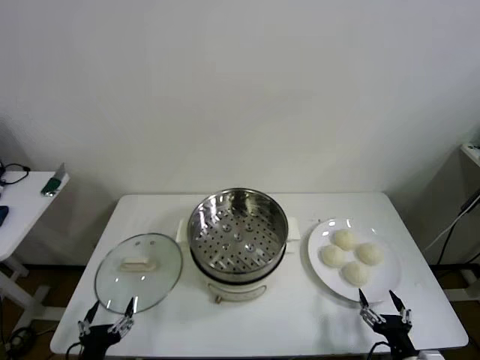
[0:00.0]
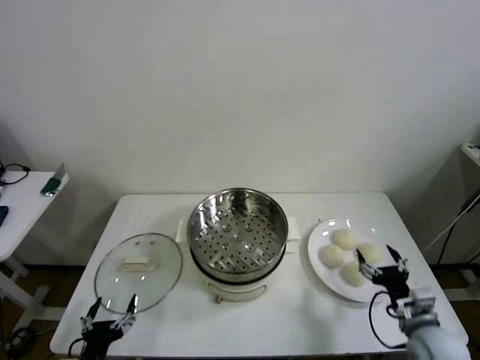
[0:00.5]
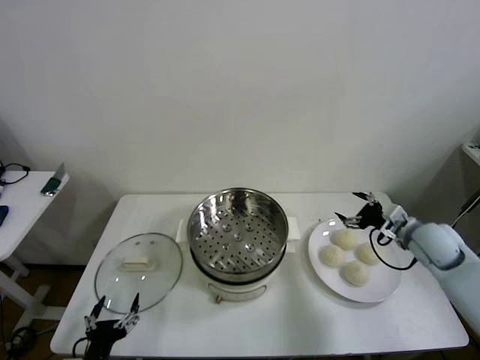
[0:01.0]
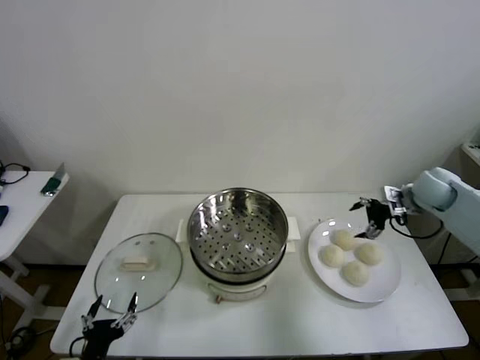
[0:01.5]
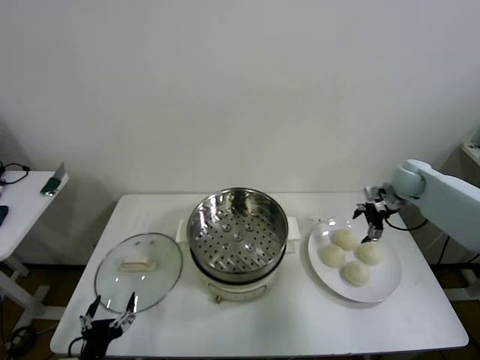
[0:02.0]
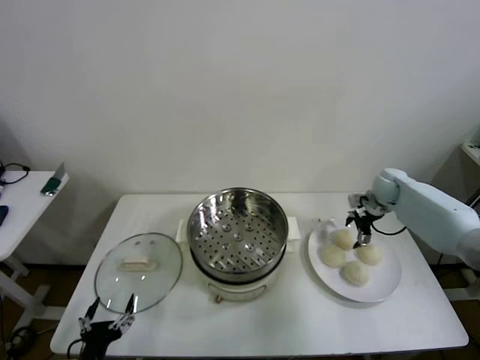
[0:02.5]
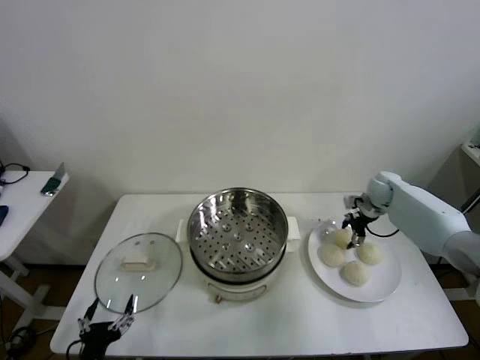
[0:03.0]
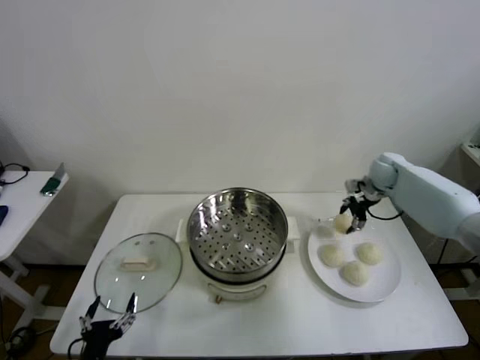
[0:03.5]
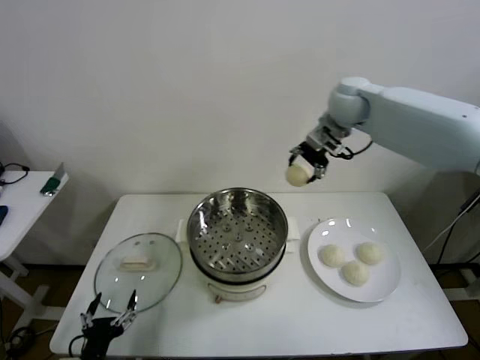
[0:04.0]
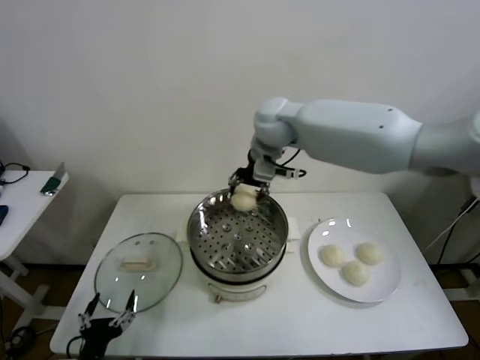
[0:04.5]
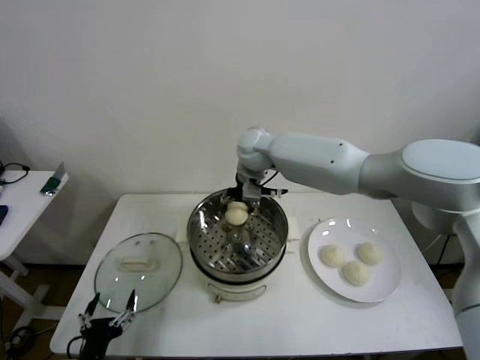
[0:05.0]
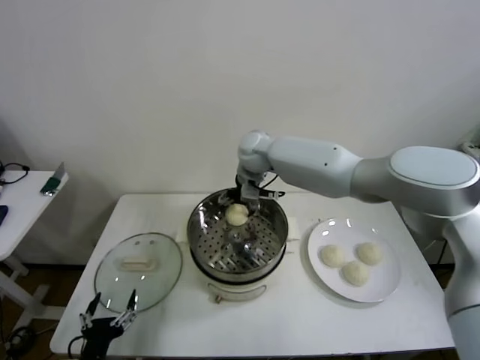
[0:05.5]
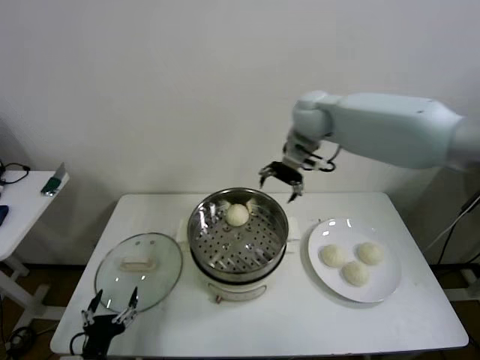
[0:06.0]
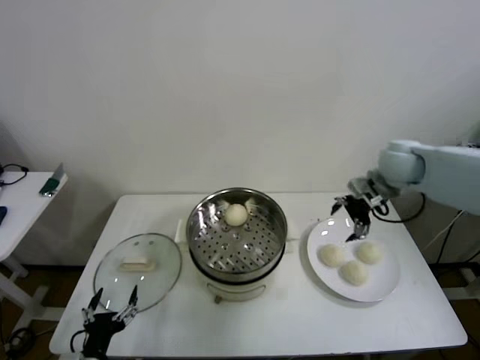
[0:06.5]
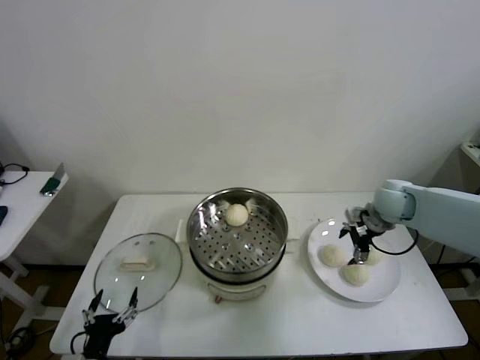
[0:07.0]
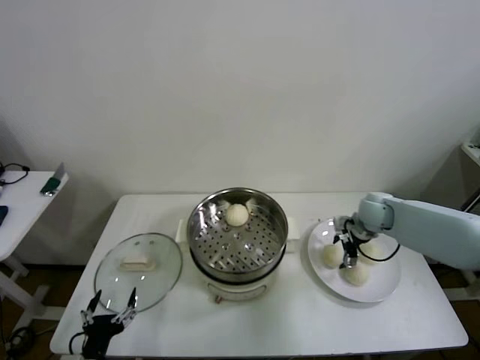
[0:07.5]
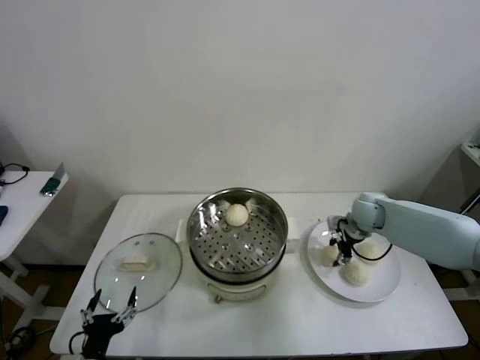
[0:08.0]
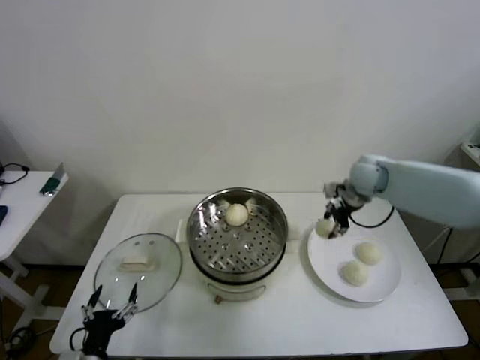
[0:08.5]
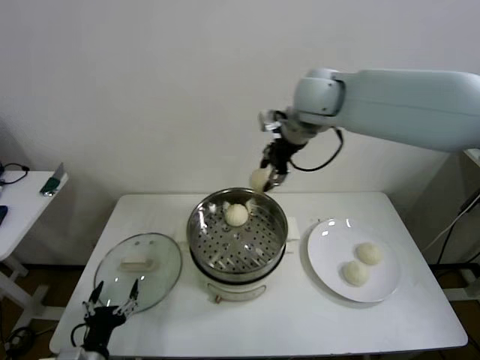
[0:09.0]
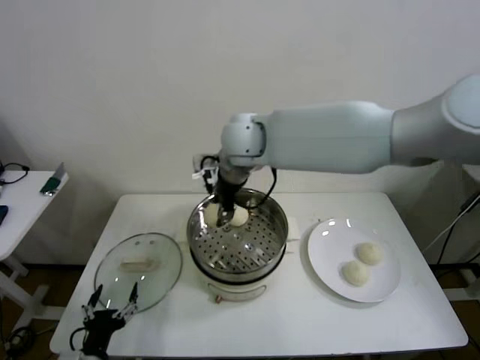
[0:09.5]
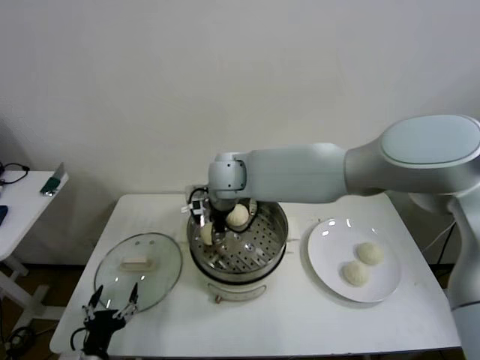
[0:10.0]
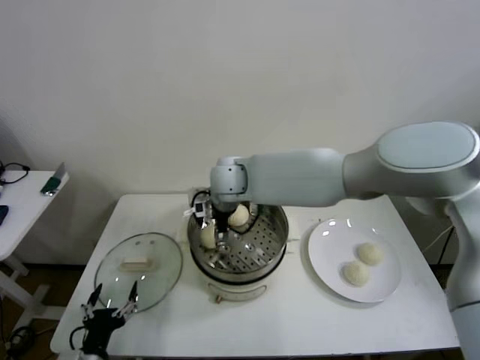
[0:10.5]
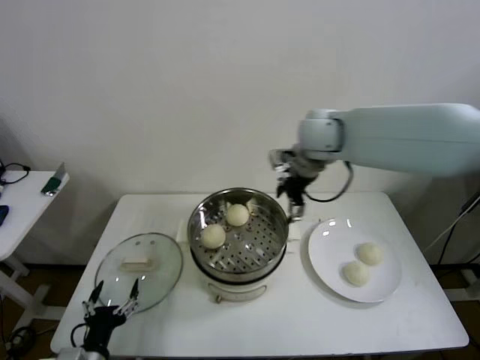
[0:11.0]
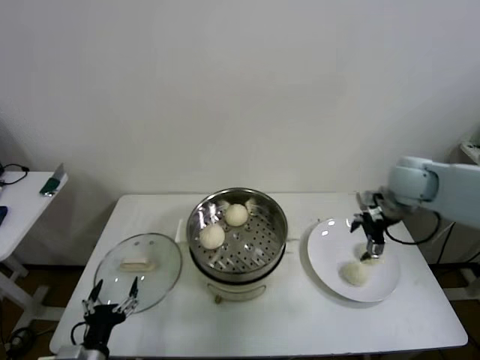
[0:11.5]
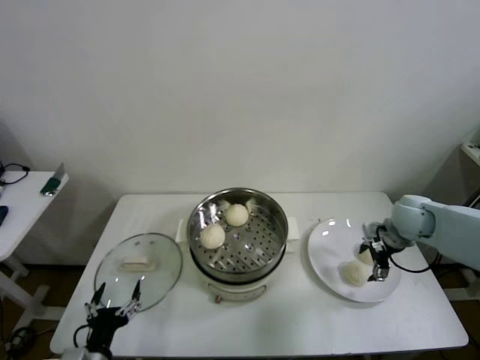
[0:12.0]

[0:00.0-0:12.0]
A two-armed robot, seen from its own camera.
Step, 0:00.0 to 0:02.5: Grasp the baozi in the plate with right gripper.
Step, 0:03.0 to 0:05.5: Place the baozi on the steamer with right gripper.
Step, 0:06.0 to 0:08.0: Grasp the baozi in the plate with right gripper.
Step, 0:08.5 to 0:10.5: Place the baozi on the steamer with right gripper.
0:02.0 to 0:04.0: The right gripper goes some 35 cm to the left and upward, and closes up.
0:04.0 to 0:06.0: The right gripper moves approximately 15 cm to the left and comes back, and opens its fingers.
0:06.0 to 0:08.0: The right gripper travels downward and to the right by approximately 30 cm, and closes up.
0:08.0 to 0:10.0: The right gripper heads to the left and upward, covering roughly 40 cm.
0:10.0 to 0:12.0: The right gripper goes some 40 cm to the right, and opens up.

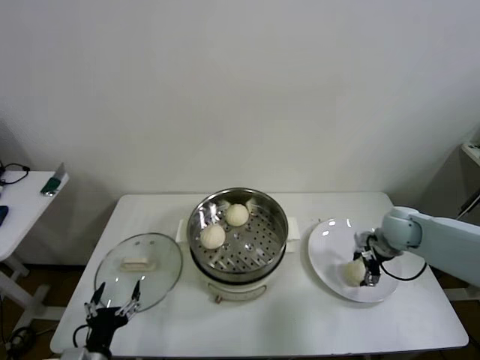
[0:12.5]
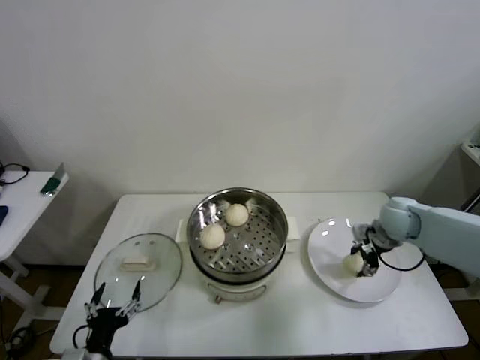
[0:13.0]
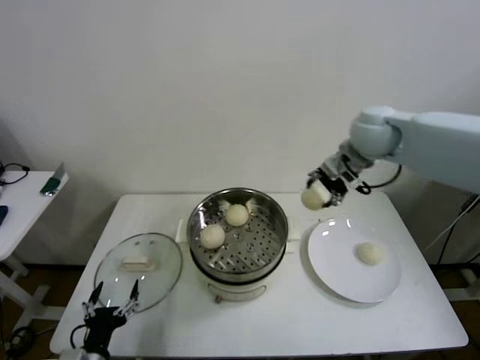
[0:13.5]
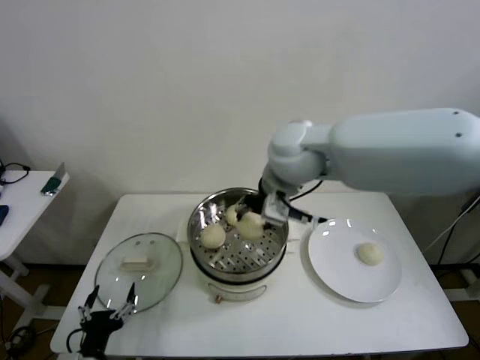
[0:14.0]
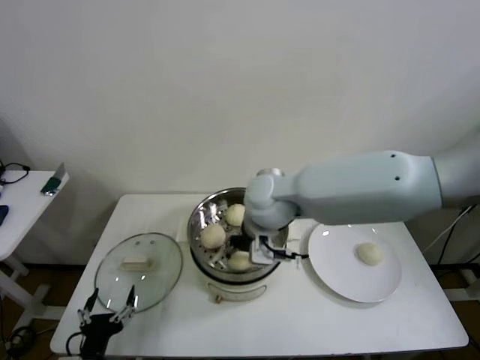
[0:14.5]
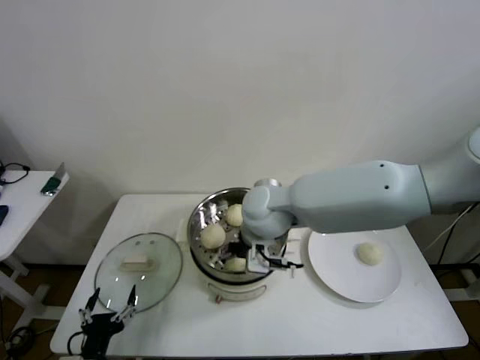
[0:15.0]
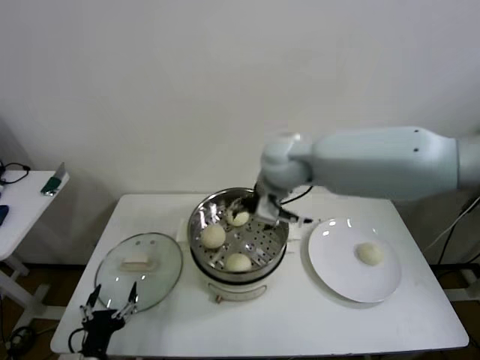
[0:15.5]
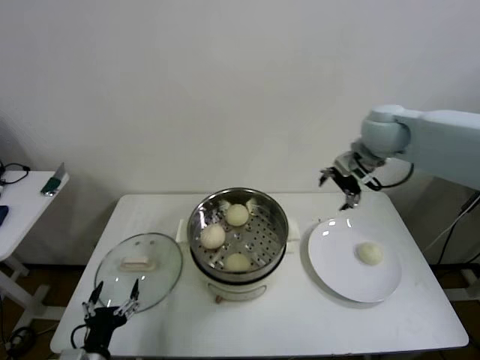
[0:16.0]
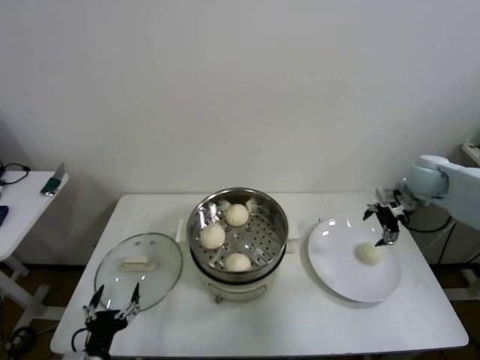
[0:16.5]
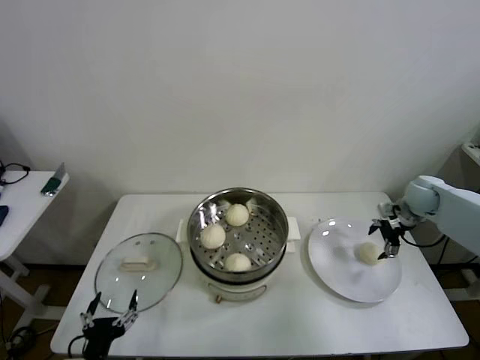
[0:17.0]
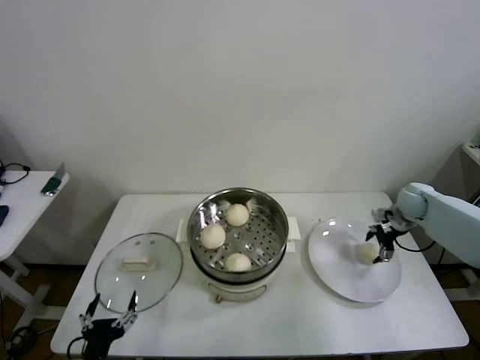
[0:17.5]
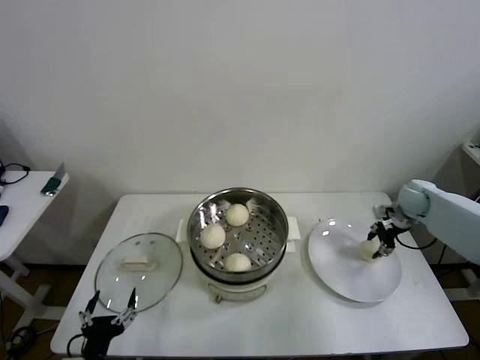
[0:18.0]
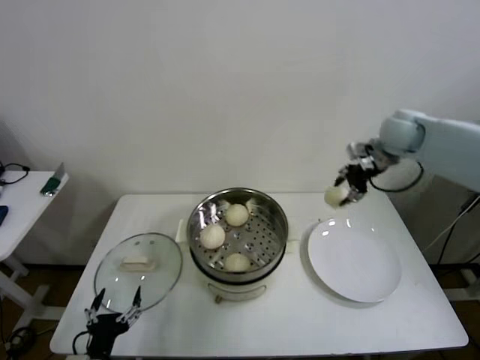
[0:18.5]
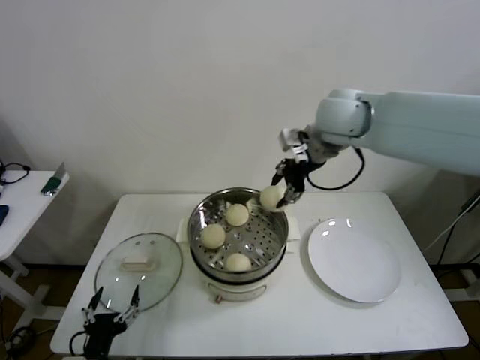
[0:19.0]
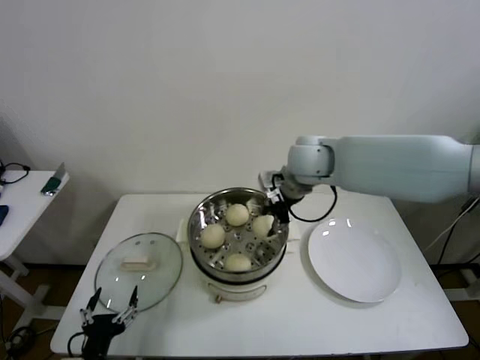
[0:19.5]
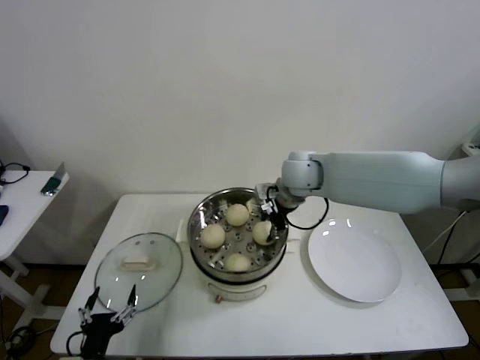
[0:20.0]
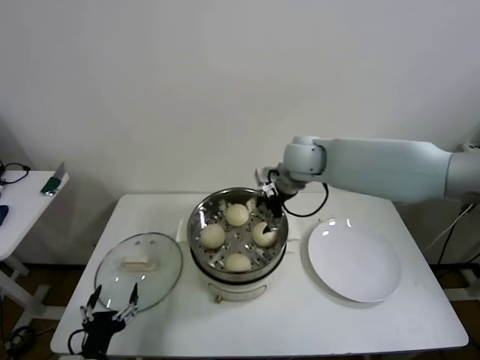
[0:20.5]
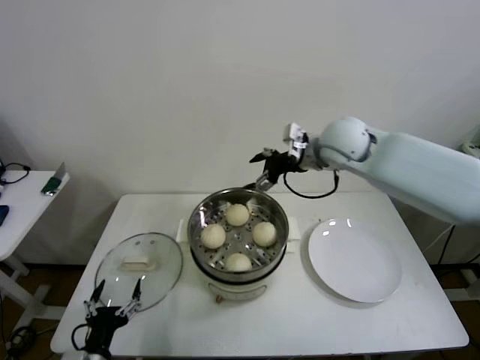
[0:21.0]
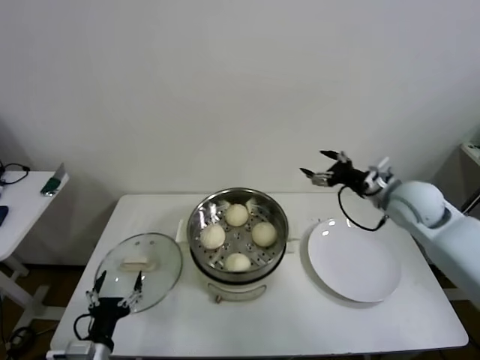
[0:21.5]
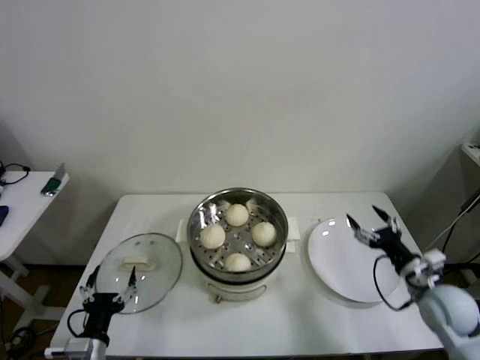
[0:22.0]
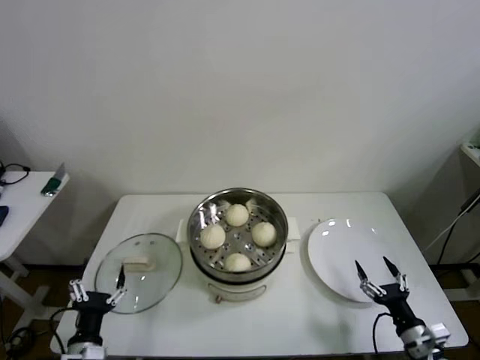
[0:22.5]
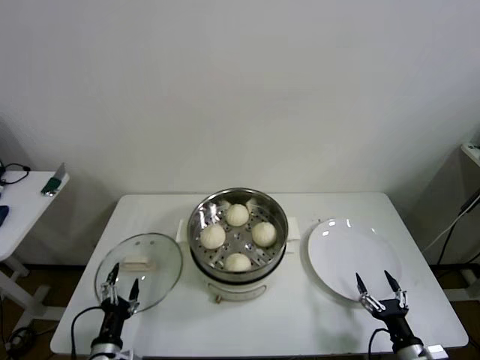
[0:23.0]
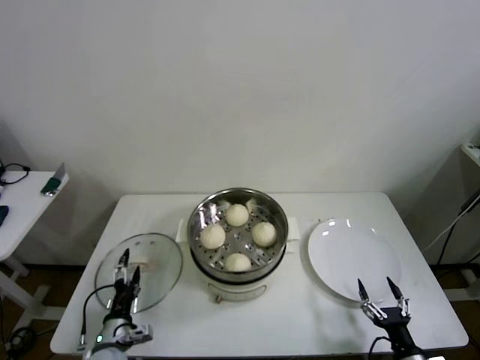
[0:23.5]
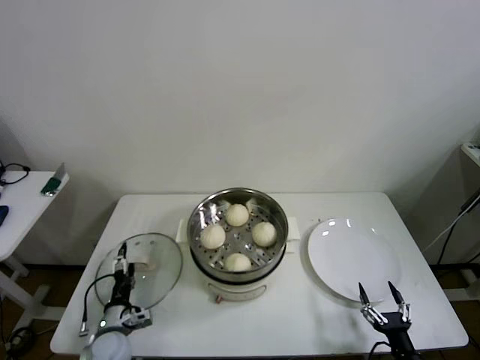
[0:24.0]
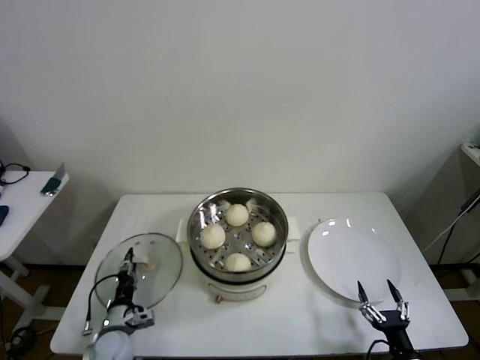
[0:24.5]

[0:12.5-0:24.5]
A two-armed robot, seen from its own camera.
Step, 0:13.0 to 0:15.0: Place the baozi on the steamer with right gripper.
Step, 0:15.5 to 0:17.5: Grasp the baozi in the plate with right gripper.
Step, 0:18.0 to 0:20.0: Place the baozi on the steamer with right gripper.
0:12.5 to 0:14.5: The right gripper travels to the left and upward by some 35 cm, and closes.
0:14.5 to 0:16.5: The right gripper moves to the right, roughly 40 cm, and opens up.
0:16.5 to 0:18.5: The right gripper goes roughly 15 cm upward and to the left, and closes.
0:18.5 to 0:20.5: The right gripper is displaced to the left by roughly 20 cm, and opens up.
0:20.5 to 0:22.5: The left gripper changes place by about 5 cm; the right gripper goes some 50 cm backward, downward and to the right.
0:22.5 to 0:24.5: The right gripper goes roughly 5 cm backward; the left gripper is displaced forward and downward by about 15 cm, and closes.

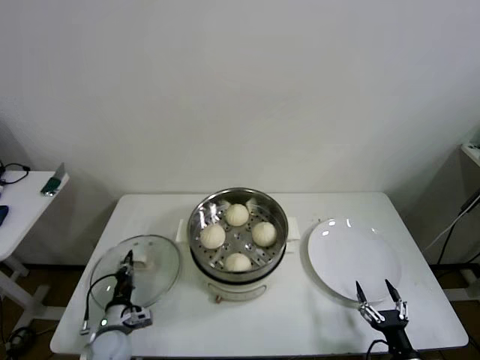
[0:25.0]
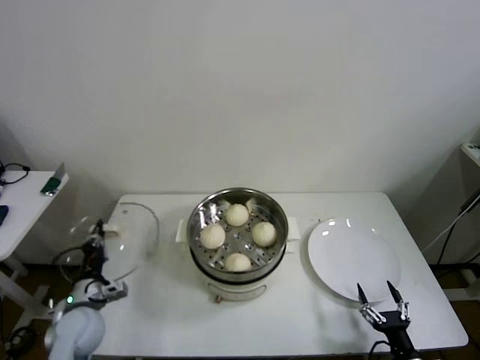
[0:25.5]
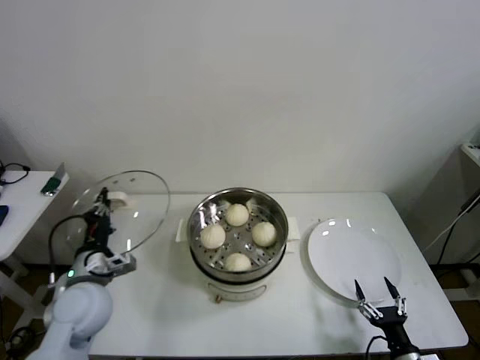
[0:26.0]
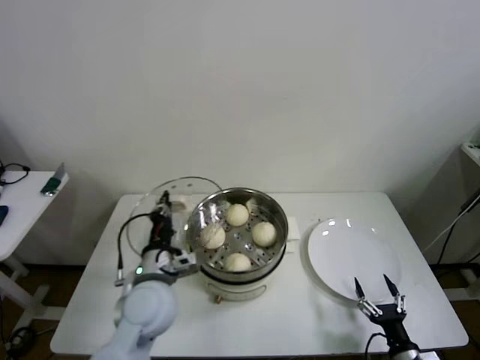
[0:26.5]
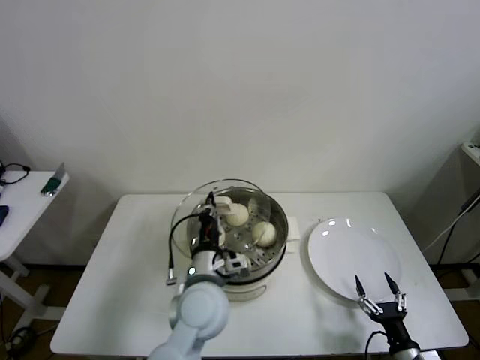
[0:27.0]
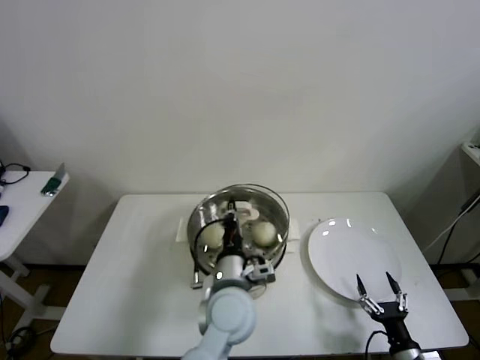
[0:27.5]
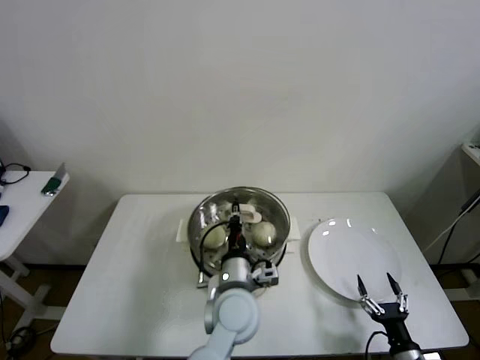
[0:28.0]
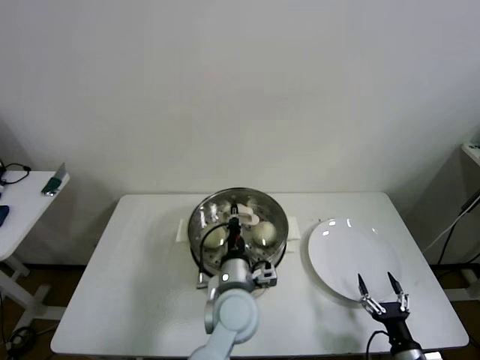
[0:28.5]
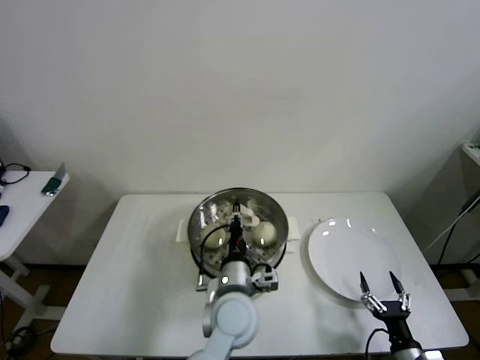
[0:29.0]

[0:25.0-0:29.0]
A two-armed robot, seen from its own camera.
0:25.0 to 0:27.0: The left gripper travels to the right and upward by approximately 30 cm.
0:27.0 to 0:29.0: The left gripper travels to the right by about 5 cm.
